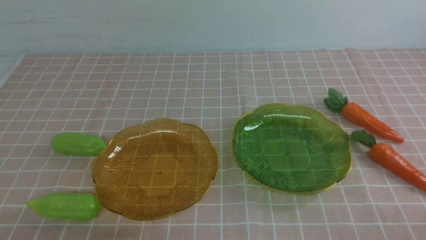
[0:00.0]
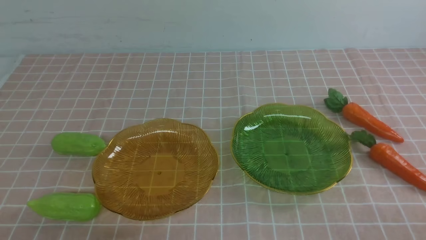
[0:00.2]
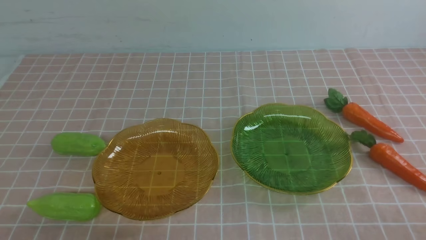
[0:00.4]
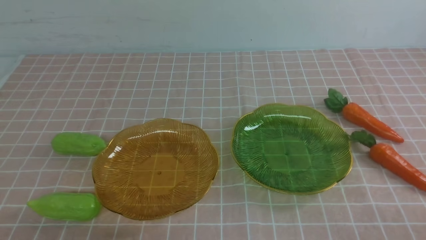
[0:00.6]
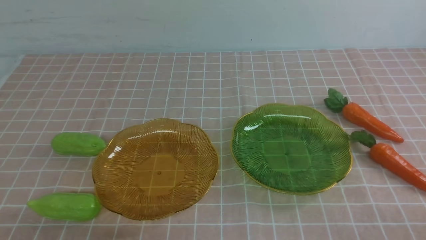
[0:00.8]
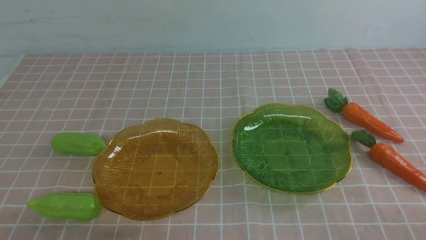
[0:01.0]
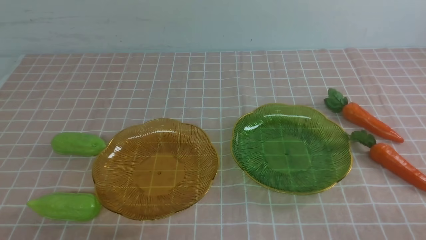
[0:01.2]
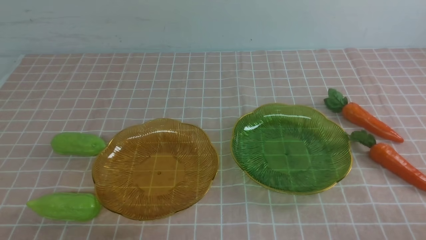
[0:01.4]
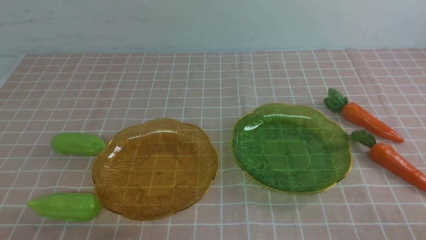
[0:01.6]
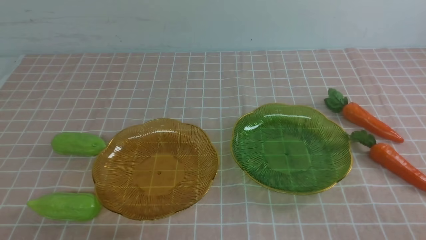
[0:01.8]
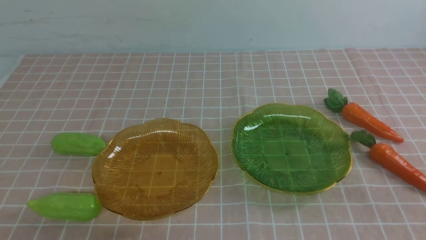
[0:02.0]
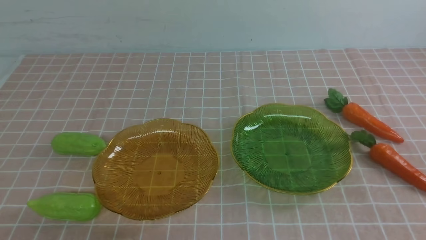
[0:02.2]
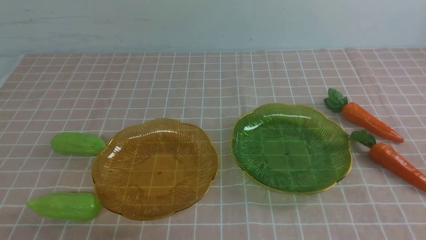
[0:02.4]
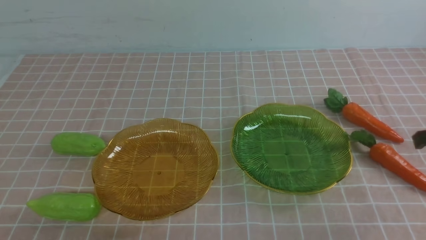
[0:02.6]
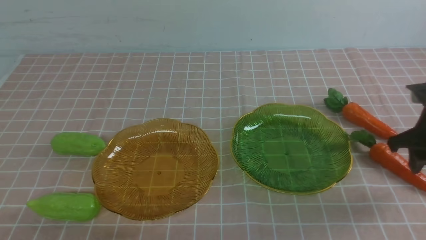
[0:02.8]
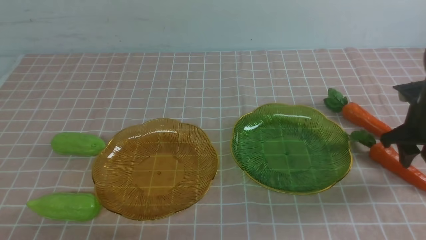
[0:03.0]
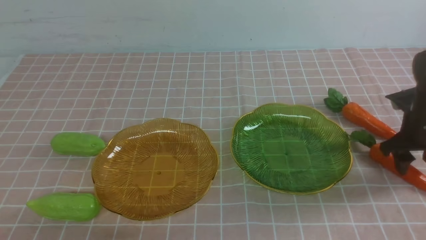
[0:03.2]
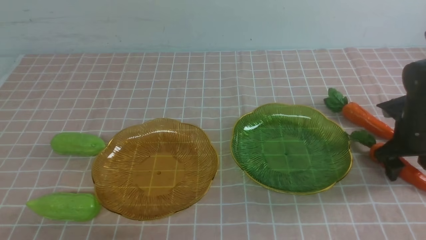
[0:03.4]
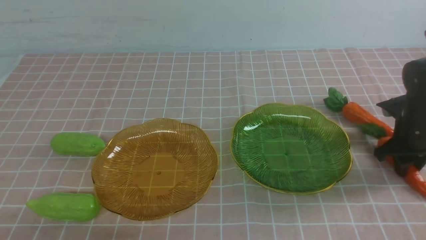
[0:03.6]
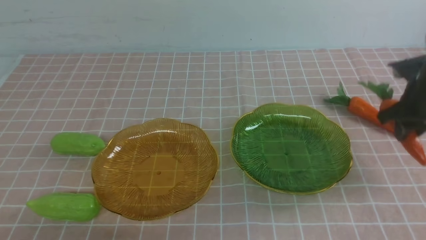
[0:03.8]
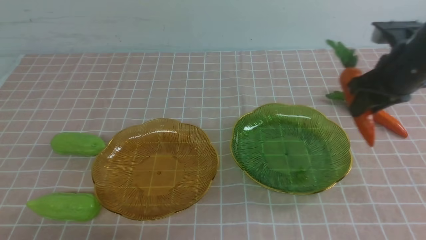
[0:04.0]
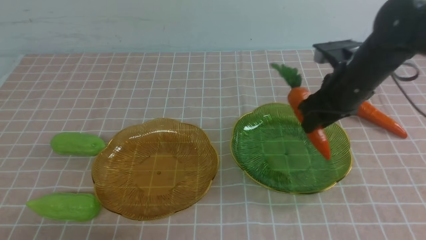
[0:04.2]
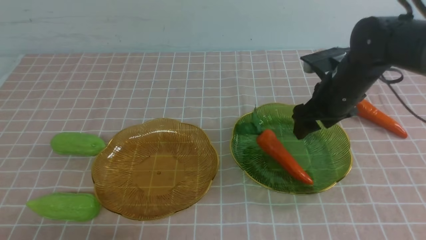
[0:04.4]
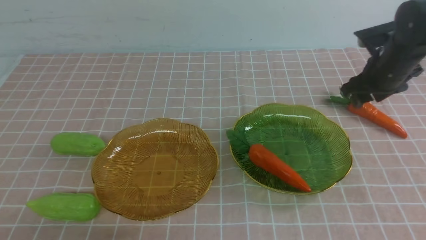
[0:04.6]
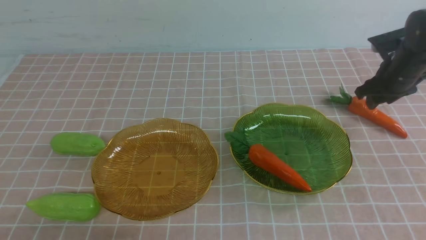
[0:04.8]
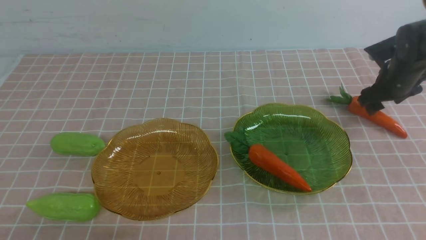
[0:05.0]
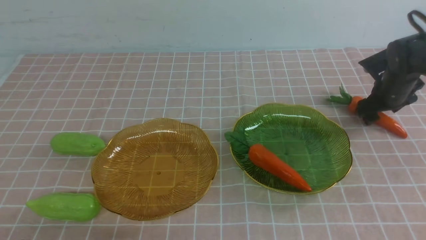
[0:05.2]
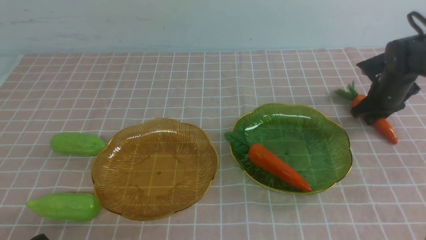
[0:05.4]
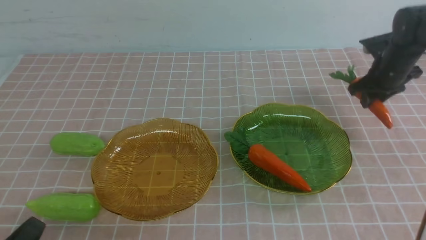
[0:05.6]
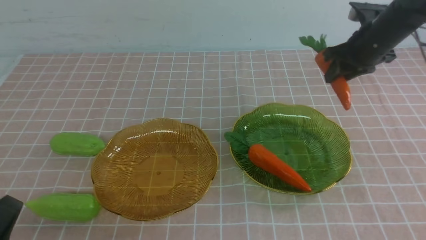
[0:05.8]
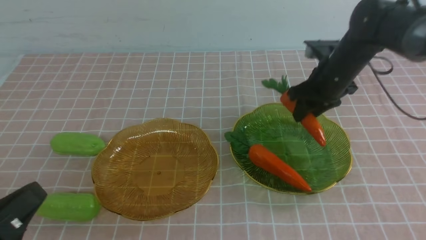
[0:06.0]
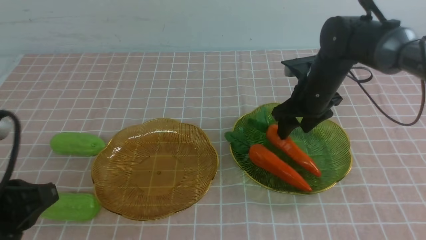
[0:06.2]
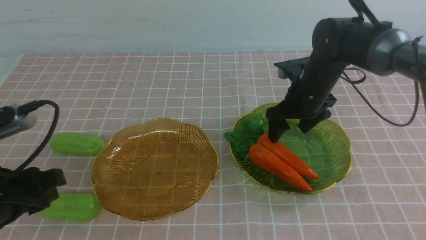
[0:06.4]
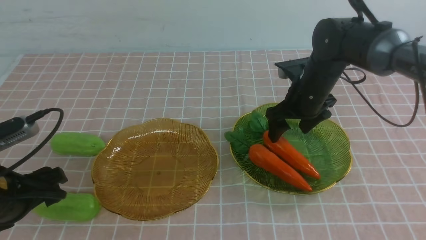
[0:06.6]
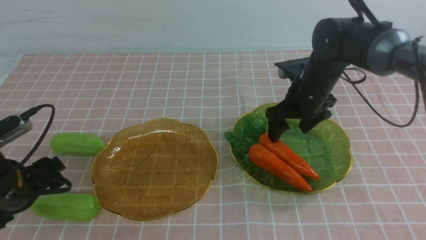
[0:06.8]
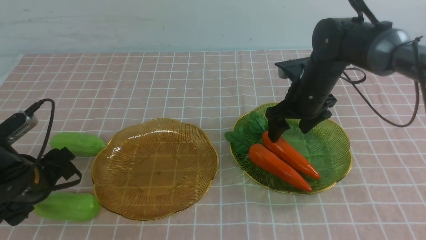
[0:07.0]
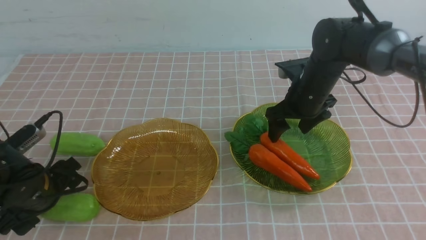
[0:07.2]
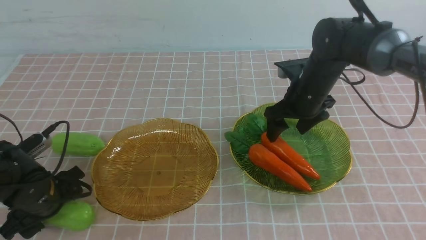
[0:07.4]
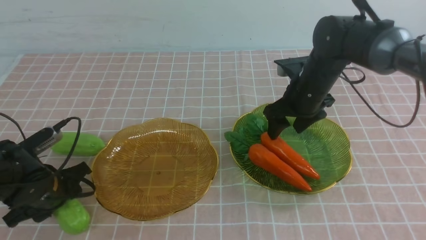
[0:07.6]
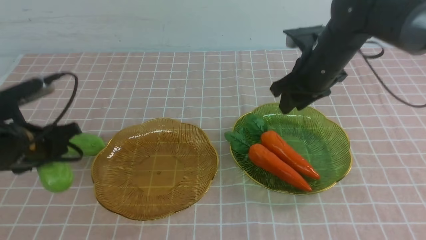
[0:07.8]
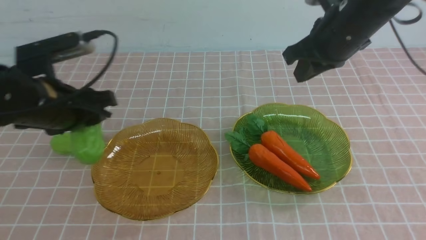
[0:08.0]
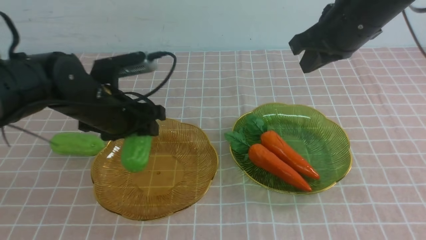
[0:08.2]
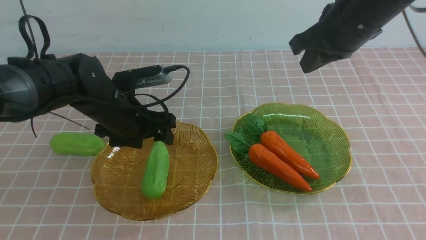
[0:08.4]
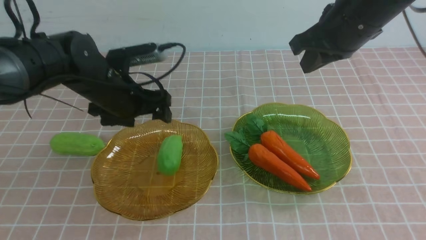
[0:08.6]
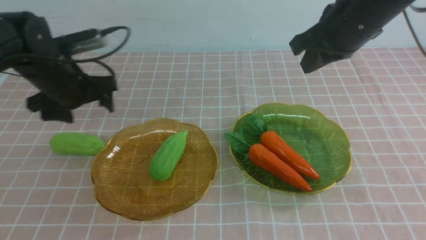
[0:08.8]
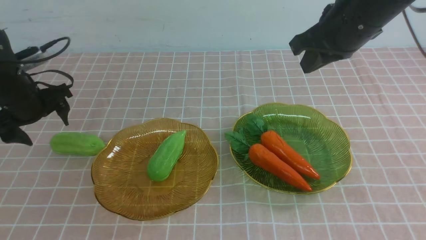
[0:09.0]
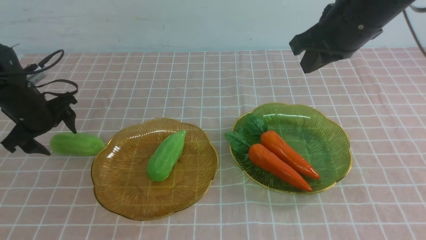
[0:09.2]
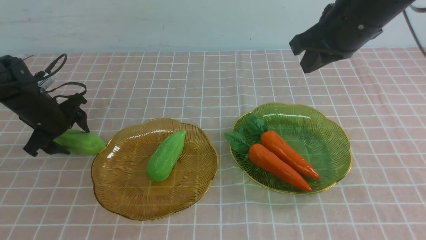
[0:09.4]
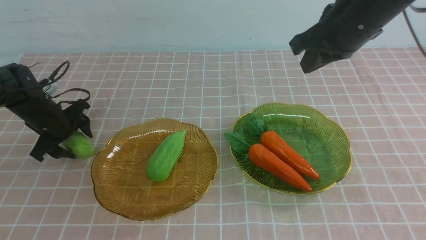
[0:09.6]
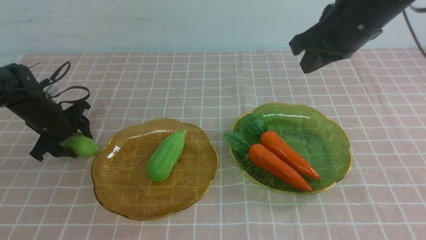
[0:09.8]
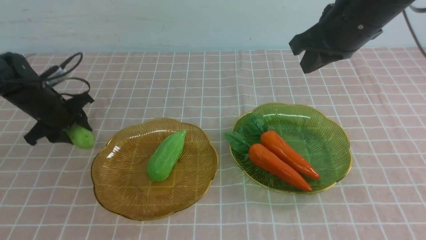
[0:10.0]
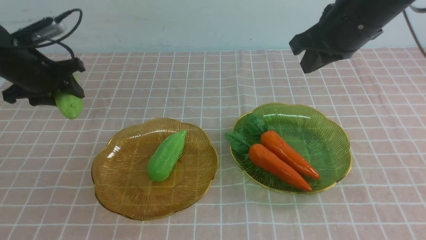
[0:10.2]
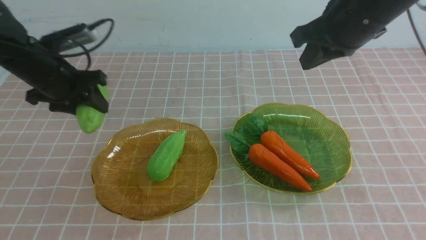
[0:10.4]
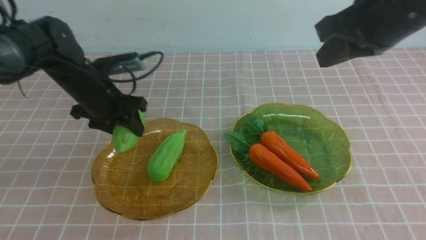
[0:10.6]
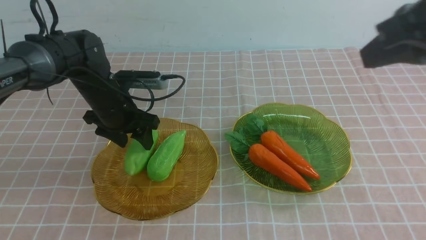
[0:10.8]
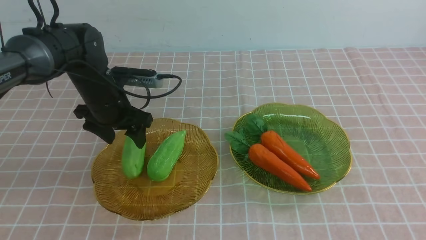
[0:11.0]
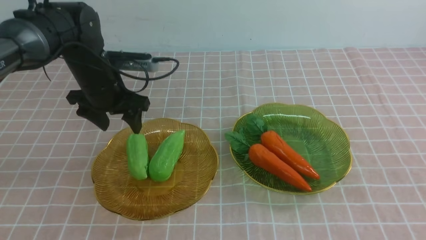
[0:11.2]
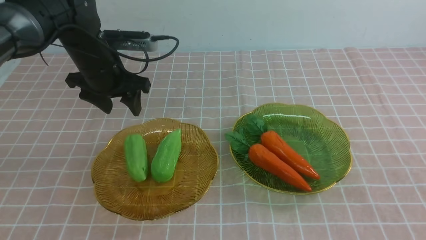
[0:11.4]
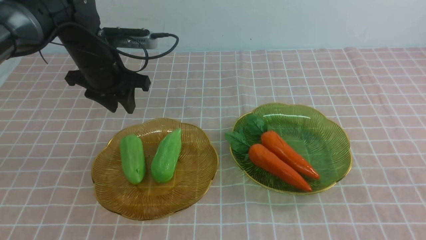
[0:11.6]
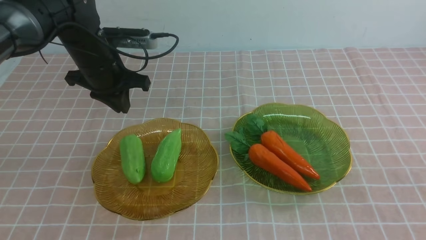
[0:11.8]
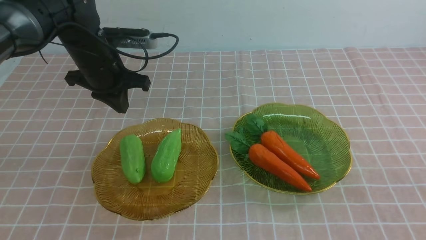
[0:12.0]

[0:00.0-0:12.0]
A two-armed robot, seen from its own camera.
Step, 0:00.0 to 0:06.8: use the right arm to grab a carrot and put it into the right plate.
Step, 0:07.0 to 0:10.8: use the left arm to grab a chayote and put it into the left plate.
0:01.6 to 0:03.0: The right gripper heads forward, covering about 30 cm, and opens.
0:03.0 to 0:04.4: The right gripper shifts roughly 10 cm to the left and forward.
0:04.4 to 0:06.0: The right gripper moves about 10 cm to the right and comes back. Meanwhile the left gripper heads upward, covering some 10 cm.
0:06.0 to 0:07.6: The right gripper shifts roughly 5 cm upward, and opens and closes again. The left gripper moves forward, roughly 20 cm, and opens its fingers.
0:07.6 to 0:09.0: The left gripper moves forward and to the left, about 15 cm, and opens up, while the right gripper travels upward by roughly 10 cm, and closes its fingers.
0:09.0 to 0:10.4: The left gripper moves to the right, about 5 cm, and moves about 5 cm downward and comes back, while the right gripper shifts roughly 5 cm backward.
0:10.4 to 0:12.0: The right gripper shifts approximately 30 cm backward, downward and to the right, while the left gripper moves about 5 cm, and closes.

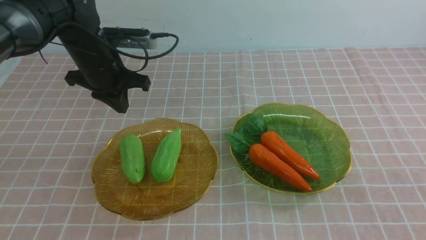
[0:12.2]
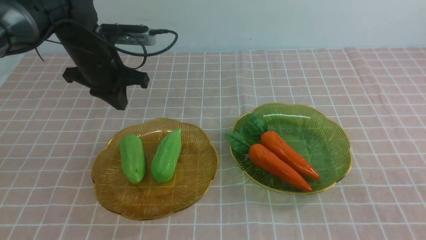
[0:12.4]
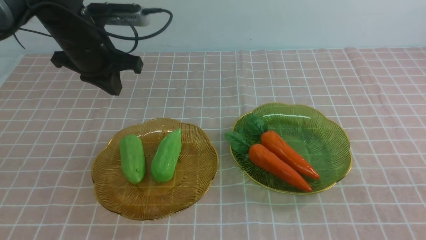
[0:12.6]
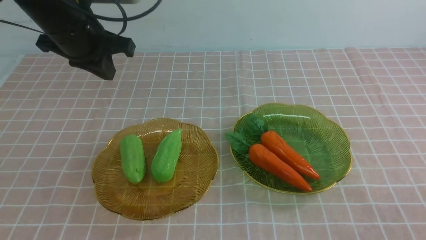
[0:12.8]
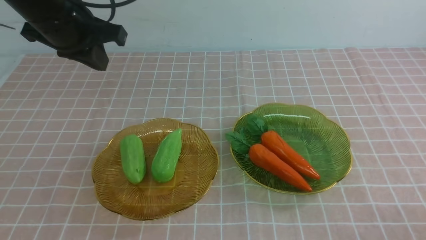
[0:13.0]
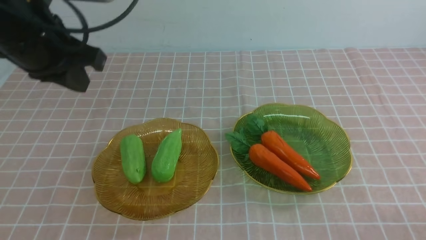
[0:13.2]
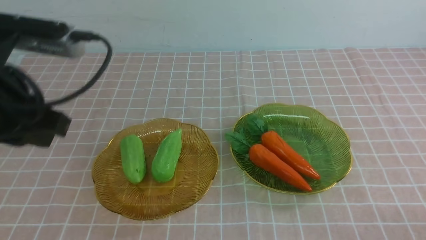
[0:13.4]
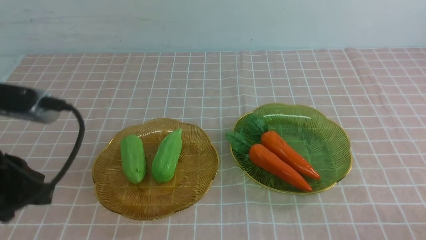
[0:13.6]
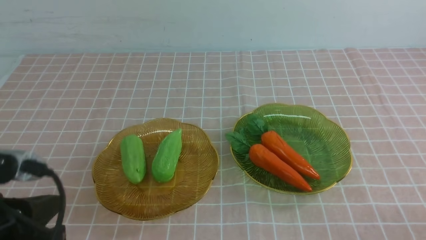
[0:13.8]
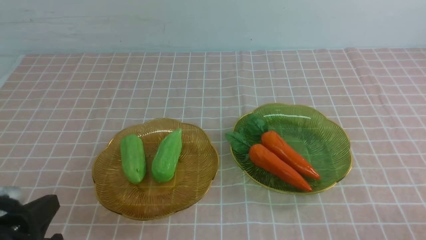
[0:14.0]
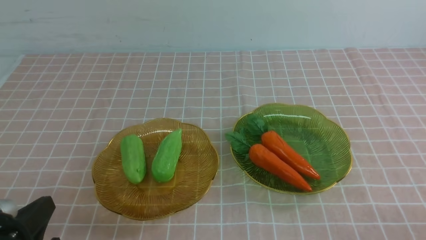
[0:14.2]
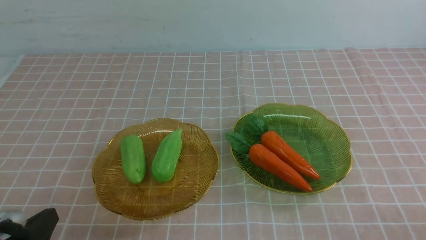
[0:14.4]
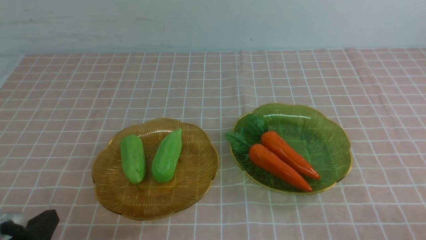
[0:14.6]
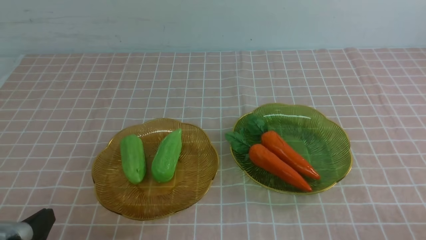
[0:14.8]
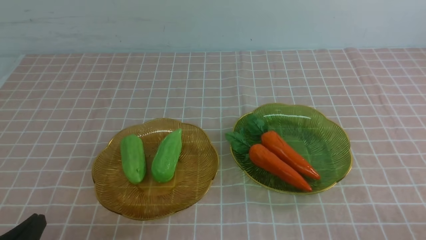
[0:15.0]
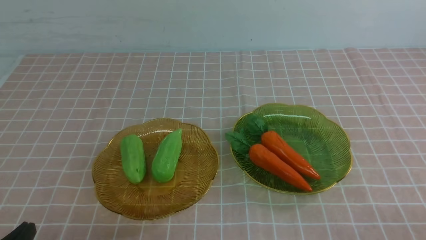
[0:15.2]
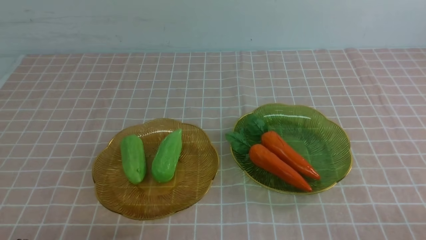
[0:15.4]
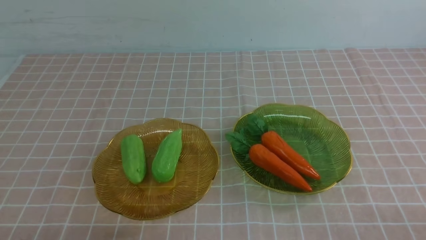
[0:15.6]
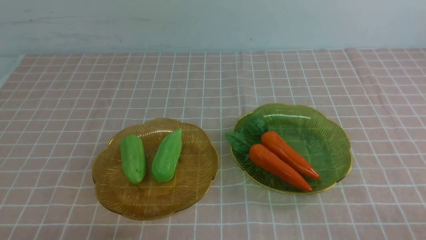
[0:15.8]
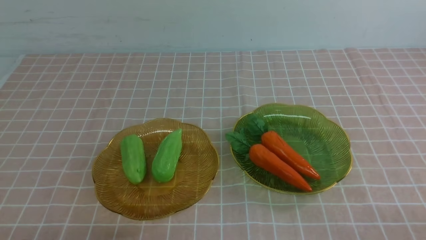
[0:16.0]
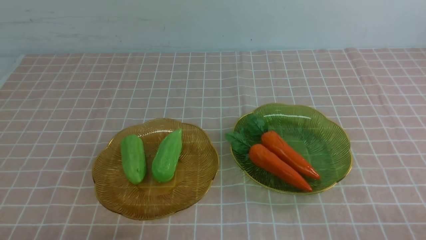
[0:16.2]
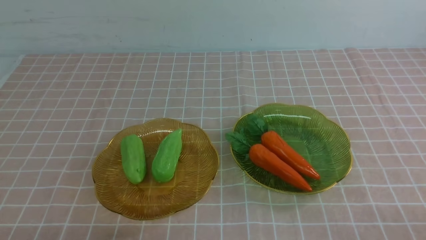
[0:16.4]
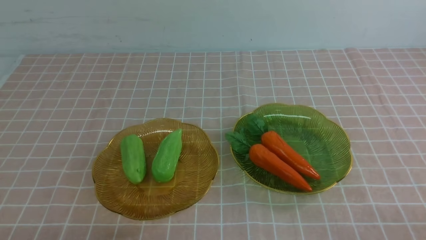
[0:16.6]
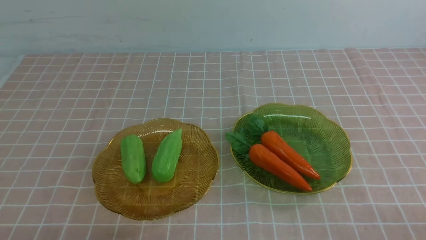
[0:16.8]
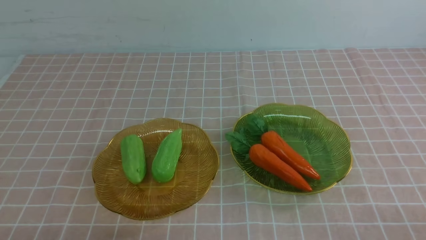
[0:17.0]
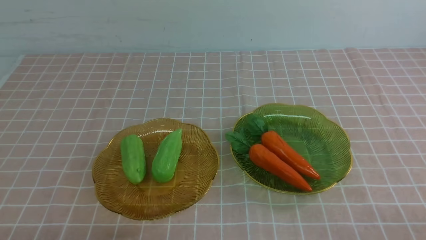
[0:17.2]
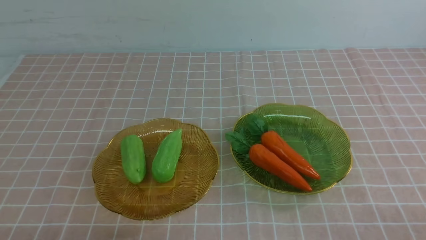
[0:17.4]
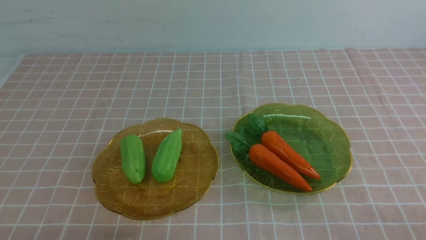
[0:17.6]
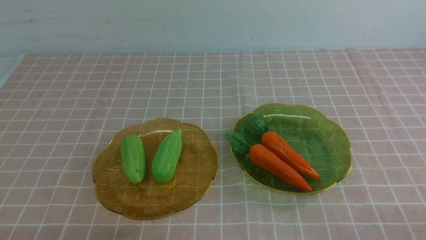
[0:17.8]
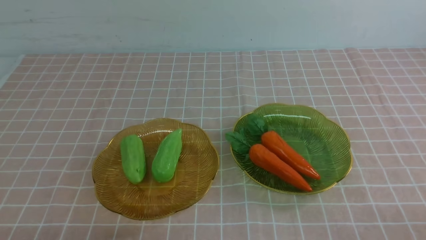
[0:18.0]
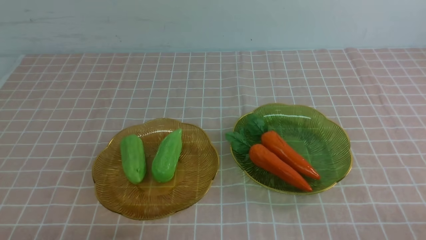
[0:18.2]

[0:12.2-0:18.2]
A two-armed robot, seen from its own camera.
0:12.2 to 0:13.8: The right gripper travels downward by some 10 cm. Meanwhile the left gripper shifts roughly 30 cm backward.
0:13.8 to 0:15.2: The left gripper is displaced downward and backward by some 15 cm.
0:16.6 to 0:18.2: The two grippers keep their place.
